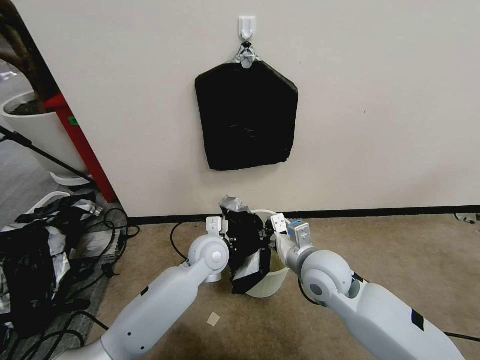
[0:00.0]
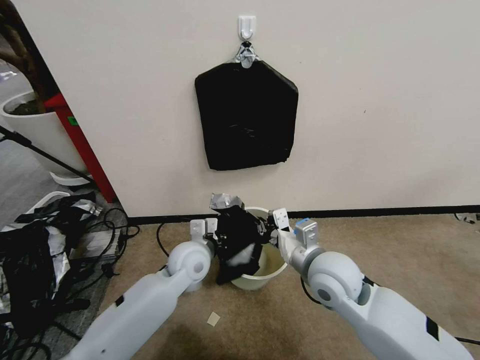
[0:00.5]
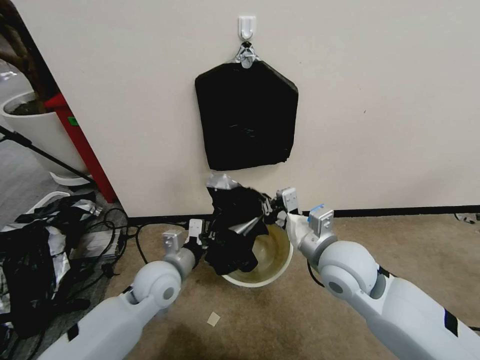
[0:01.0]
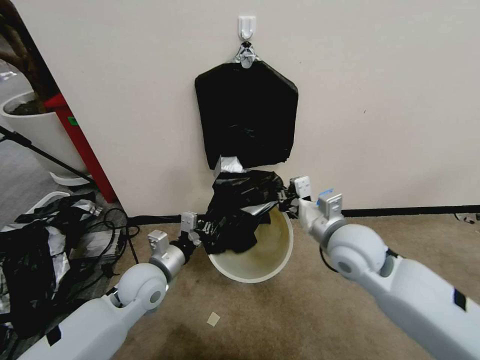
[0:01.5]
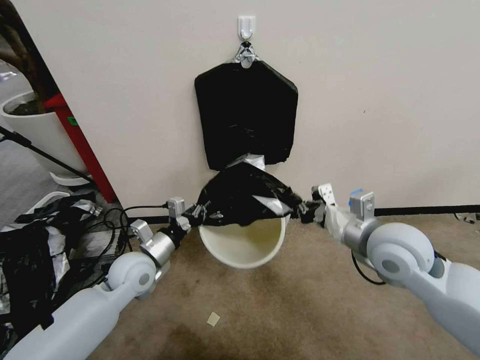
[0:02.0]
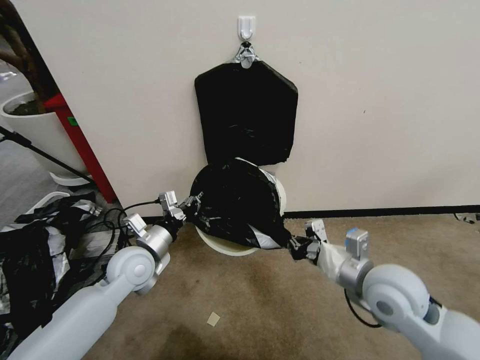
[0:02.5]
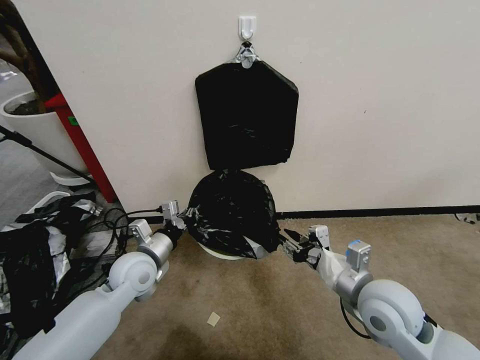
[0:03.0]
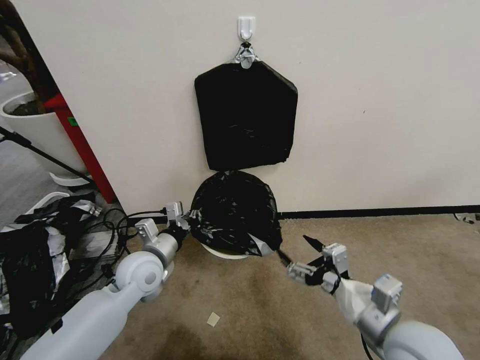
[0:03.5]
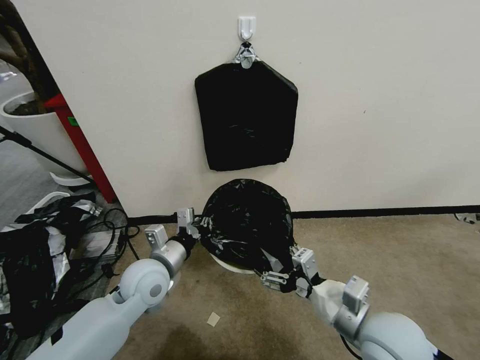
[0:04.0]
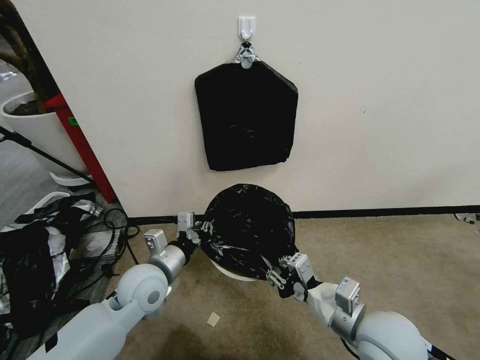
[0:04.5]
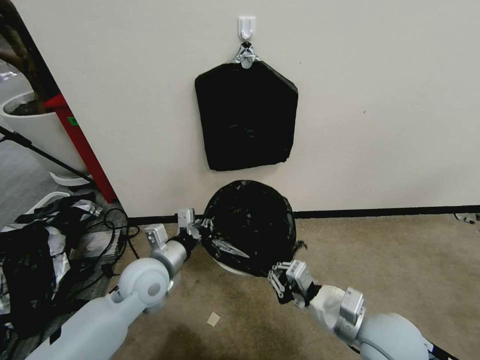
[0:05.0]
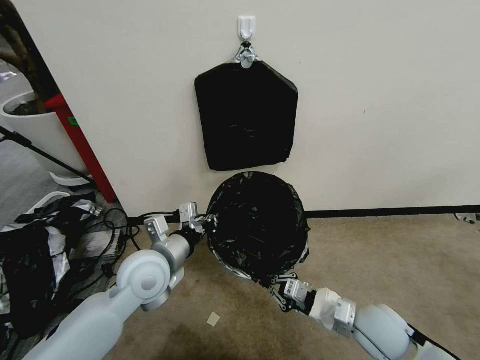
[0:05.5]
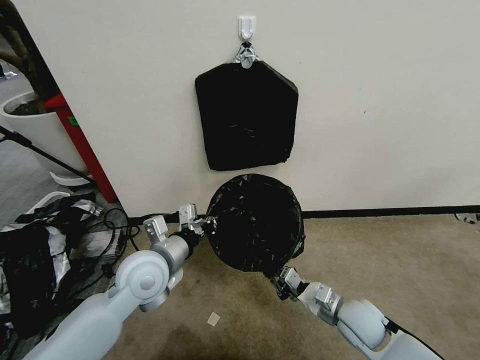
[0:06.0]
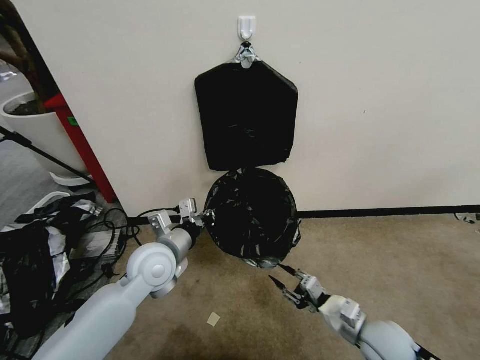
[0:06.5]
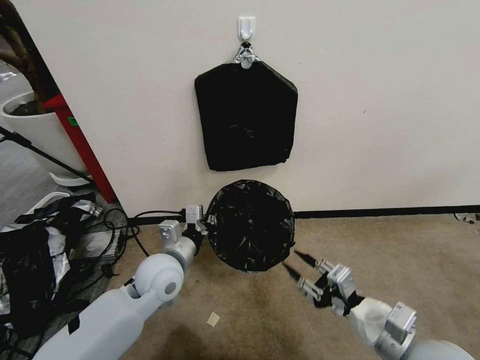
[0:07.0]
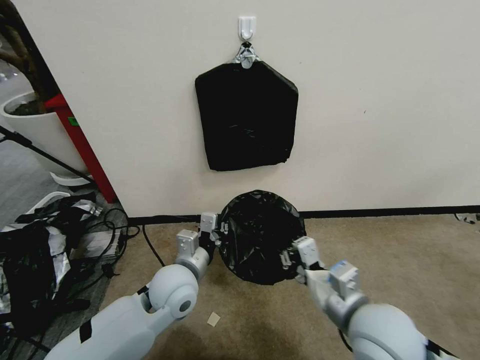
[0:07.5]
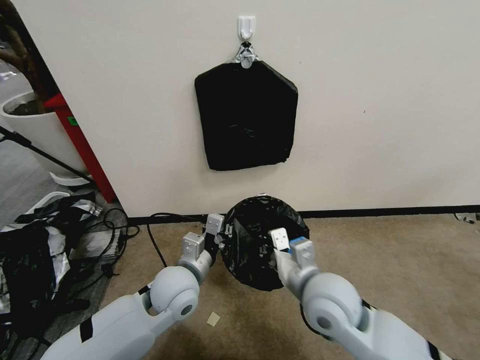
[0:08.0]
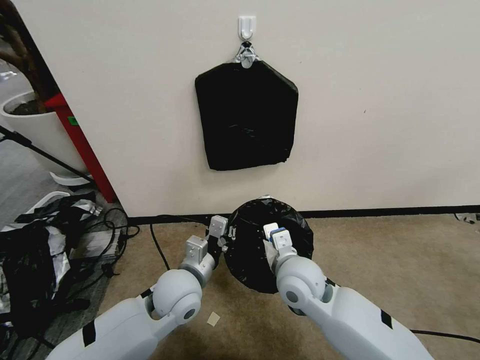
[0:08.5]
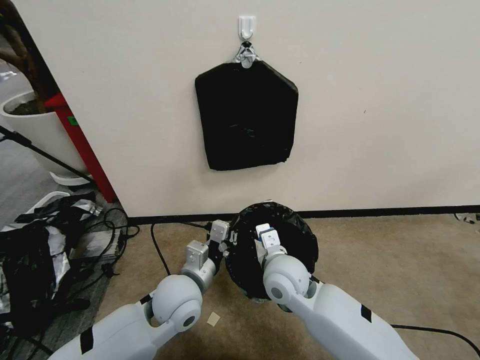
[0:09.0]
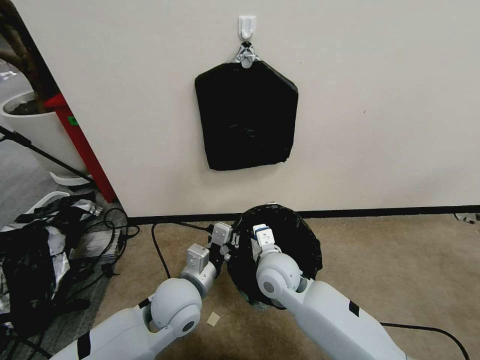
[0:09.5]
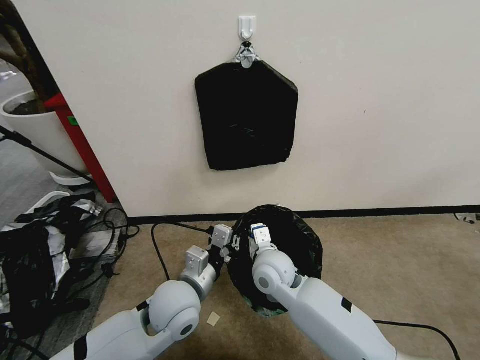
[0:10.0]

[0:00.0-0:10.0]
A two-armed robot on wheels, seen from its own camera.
Task of the whole recording: Place a trash bag onto the trash bin.
0:00.0 to 0:02.0: The right gripper goes approximately 15 cm to the right and upward, while the left gripper is displaced to the left by approximately 15 cm.
0:02.0 to 0:04.0: The right gripper moves backward and downward, roughly 15 cm, and opens, while the left gripper moves some 5 cm.
0:04.0 to 0:06.0: The left gripper goes about 5 cm upward. The right gripper heads downward and forward, covering about 15 cm, and closes.
0:06.0 to 0:08.0: The left gripper moves downward and to the right, some 10 cm. The right gripper moves upward and to the left, approximately 20 cm, and opens and closes again.
0:08.0 to 0:10.0: The right gripper heads forward, to the left and downward, covering about 15 cm.

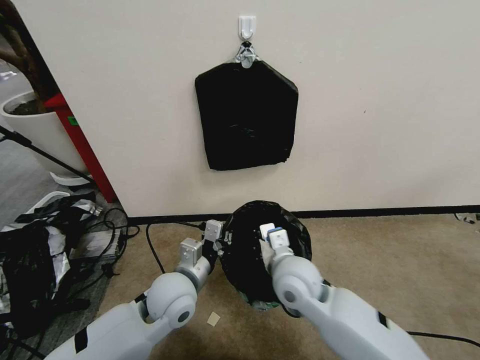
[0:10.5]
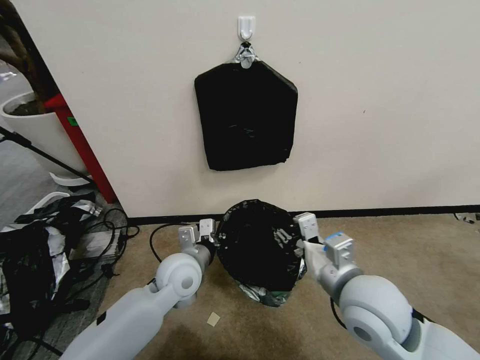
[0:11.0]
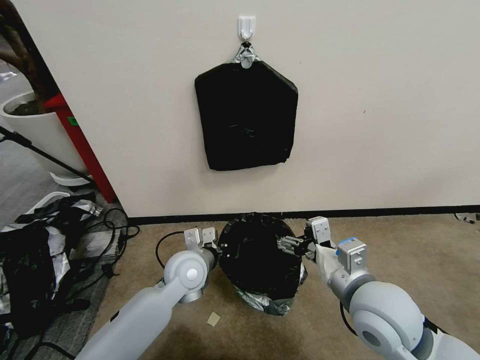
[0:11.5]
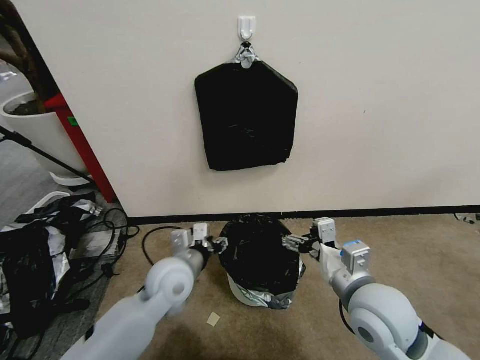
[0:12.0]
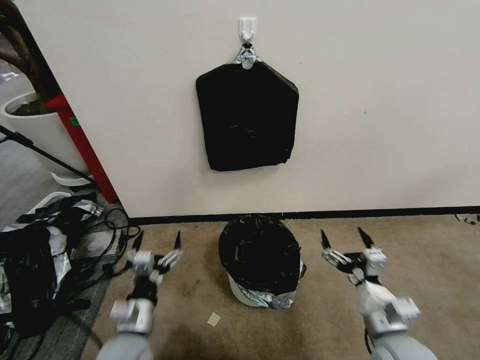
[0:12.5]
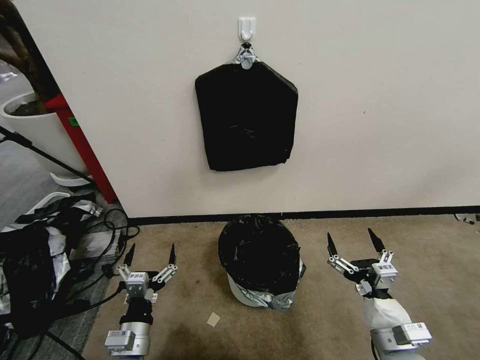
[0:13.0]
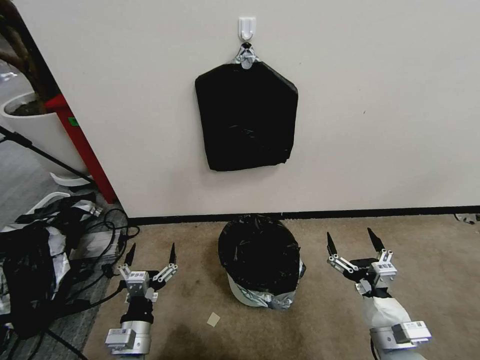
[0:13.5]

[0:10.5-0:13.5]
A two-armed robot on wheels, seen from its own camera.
Task of the whole recording: Place a trash bag onto the trash bin.
0:10.5 to 0:12.0: The right gripper goes about 15 cm to the right and backward, and opens up. The left gripper opens up.
0:12.0 to 0:13.5: The right gripper moves downward, backward and to the right, roughly 15 cm. Meanwhile the left gripper goes approximately 20 cm backward, downward and to the left, and opens its fingers.
